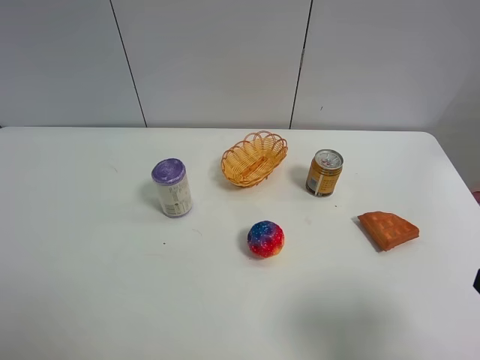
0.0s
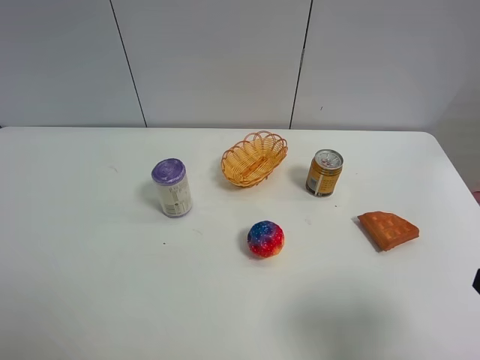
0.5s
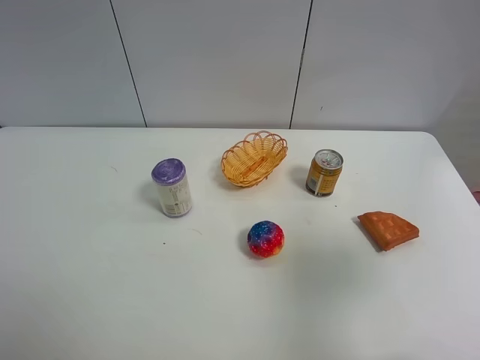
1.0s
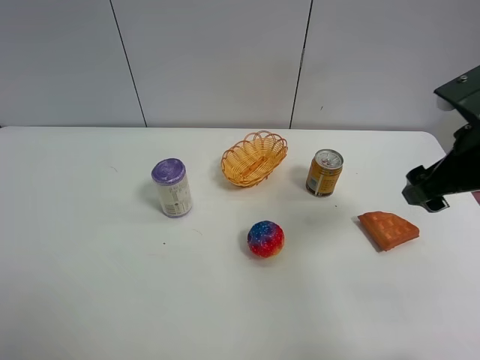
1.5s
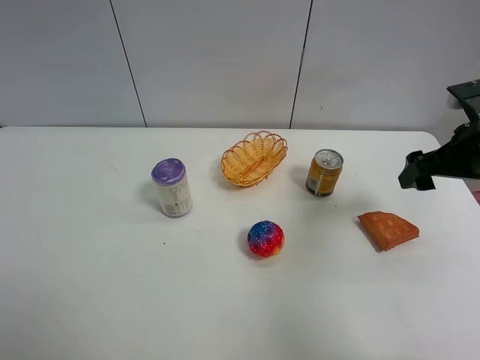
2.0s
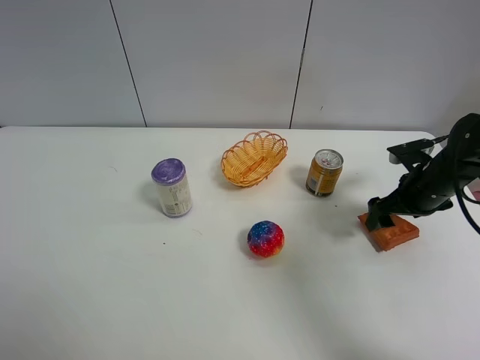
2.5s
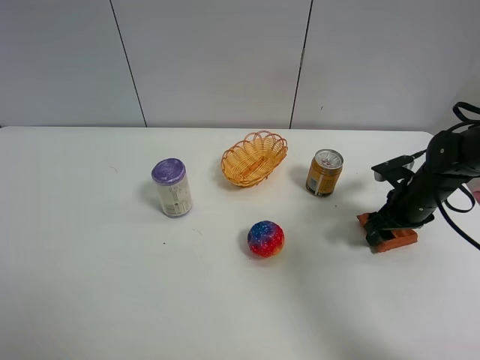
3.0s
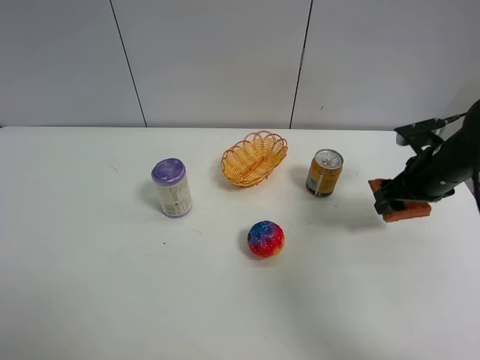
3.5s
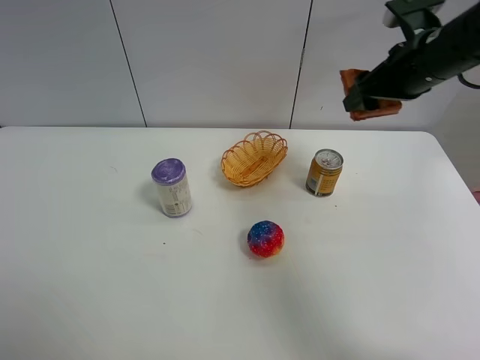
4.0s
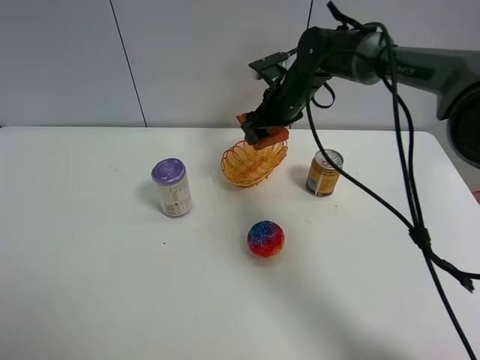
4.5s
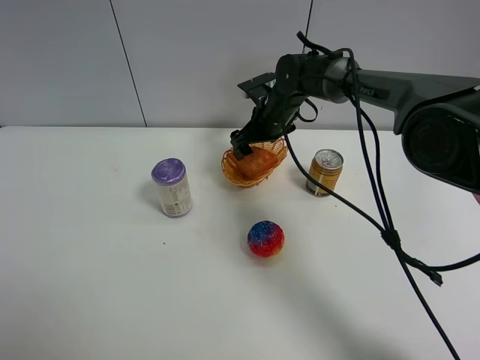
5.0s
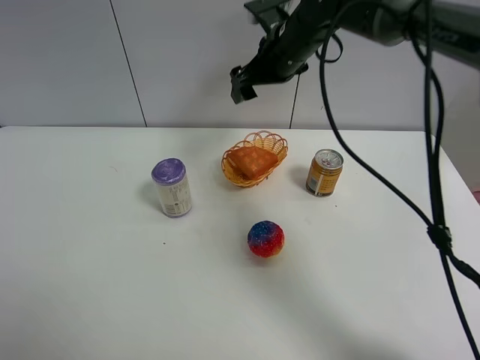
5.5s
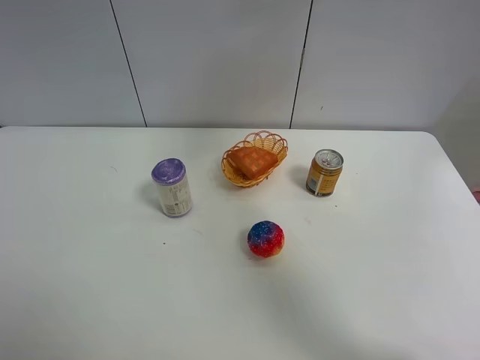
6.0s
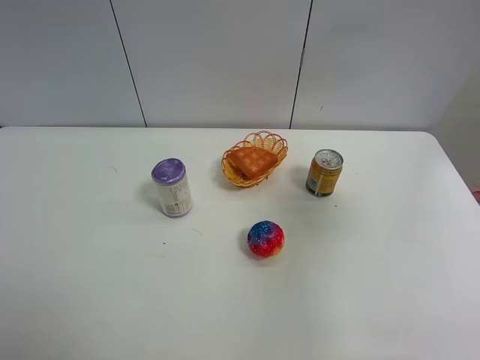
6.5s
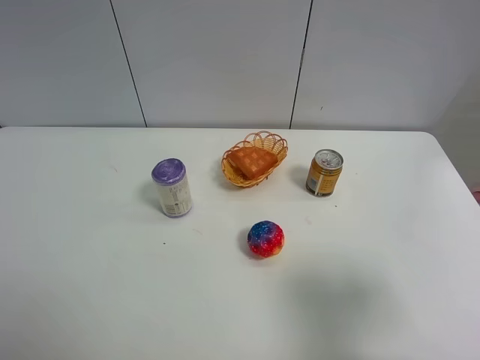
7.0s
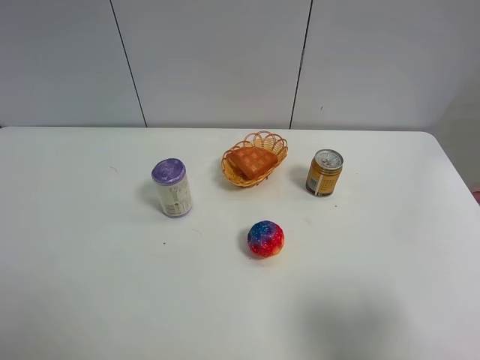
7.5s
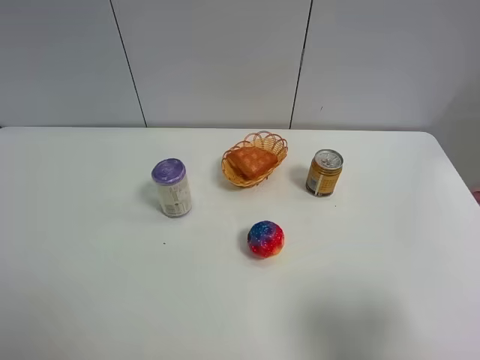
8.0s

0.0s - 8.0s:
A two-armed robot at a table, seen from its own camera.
Task of the whole recording: Put the bakery in the basket.
Step, 0.0s - 3.0s: Grasp the bread with right gripper.
Step, 3.5s - 5.5s: Place the bread in the basket with right gripper.
0.0s - 2.0s: The right gripper heads forward, covering roughly 25 cm.
2.0s - 4.0s: The right gripper shifts about 10 cm forward and to the left, goes downward and returns, roughly 15 cm each way, and closes its fingers.
4.0s - 6.0s: The right gripper heads upward, covering some 15 cm, and opens up.
6.0s - 8.0s: The right gripper moves backward and downward, approximately 40 cm.
